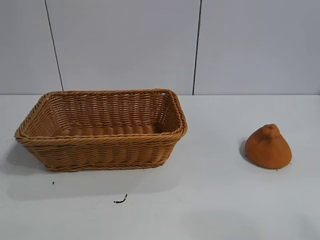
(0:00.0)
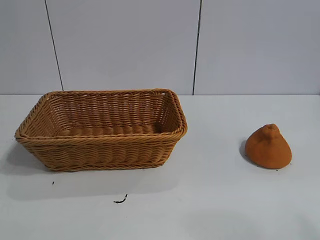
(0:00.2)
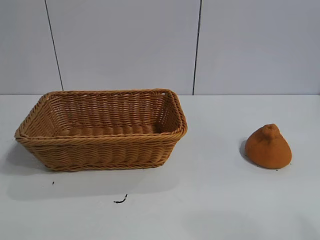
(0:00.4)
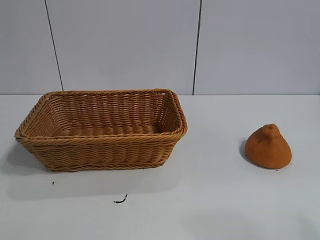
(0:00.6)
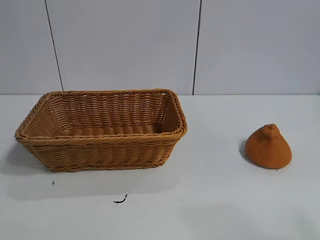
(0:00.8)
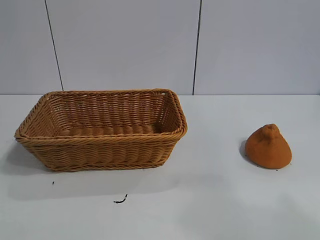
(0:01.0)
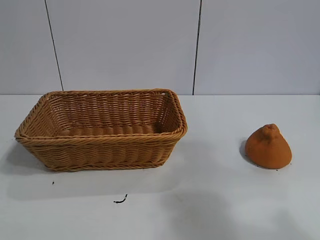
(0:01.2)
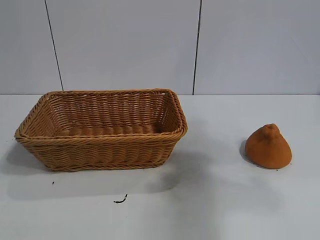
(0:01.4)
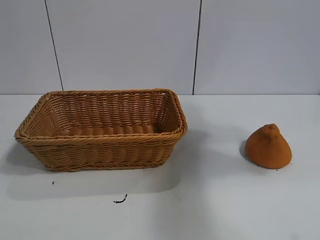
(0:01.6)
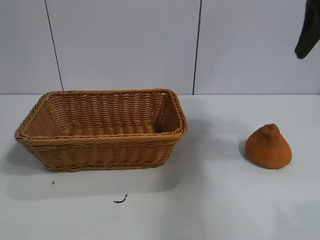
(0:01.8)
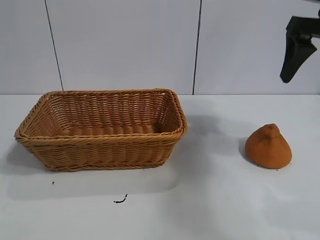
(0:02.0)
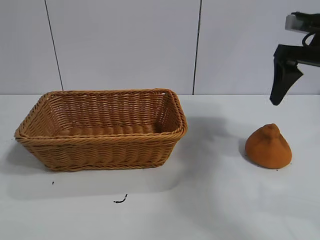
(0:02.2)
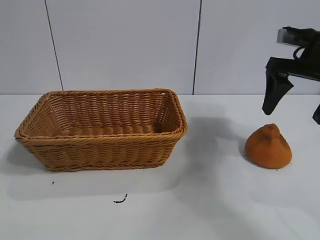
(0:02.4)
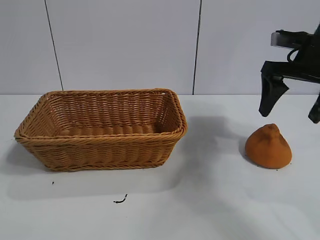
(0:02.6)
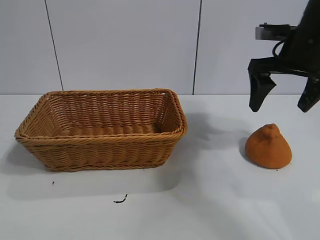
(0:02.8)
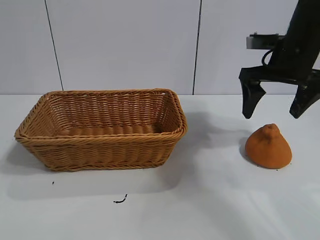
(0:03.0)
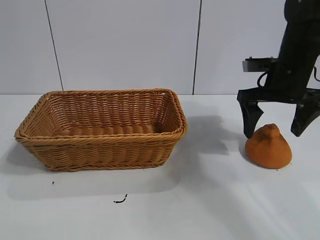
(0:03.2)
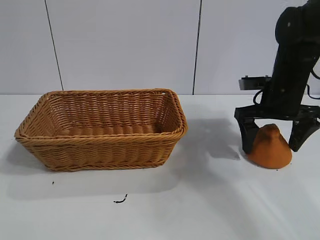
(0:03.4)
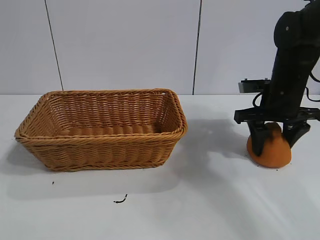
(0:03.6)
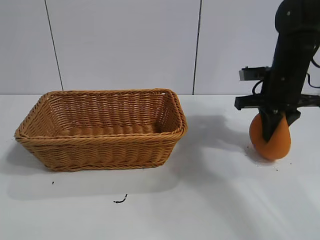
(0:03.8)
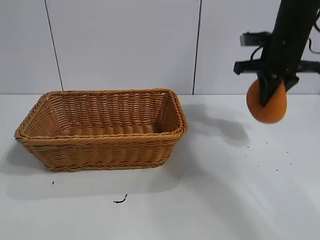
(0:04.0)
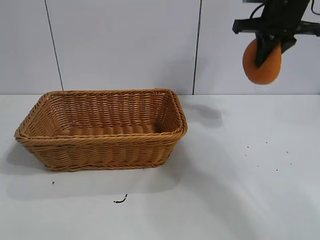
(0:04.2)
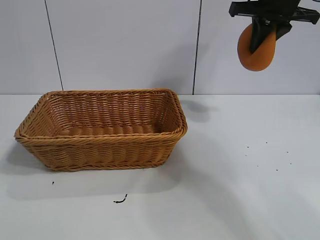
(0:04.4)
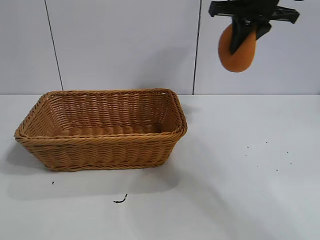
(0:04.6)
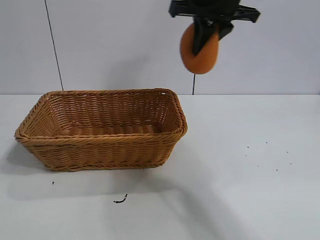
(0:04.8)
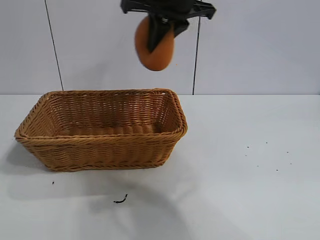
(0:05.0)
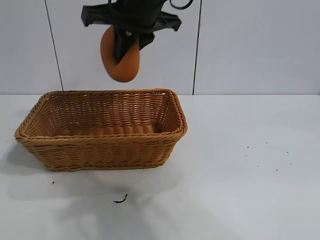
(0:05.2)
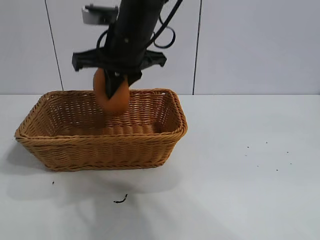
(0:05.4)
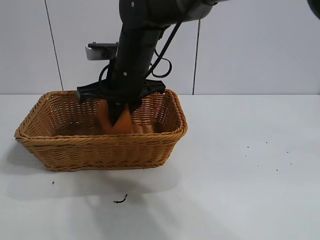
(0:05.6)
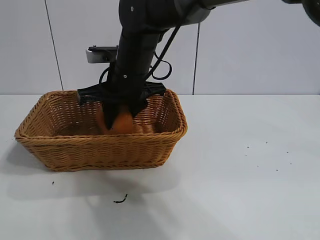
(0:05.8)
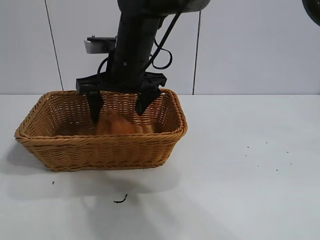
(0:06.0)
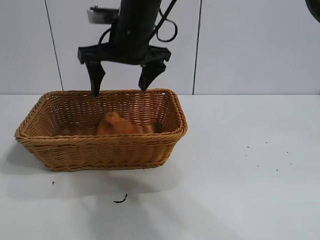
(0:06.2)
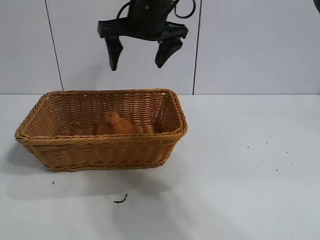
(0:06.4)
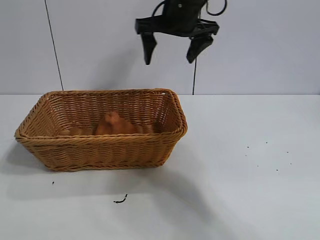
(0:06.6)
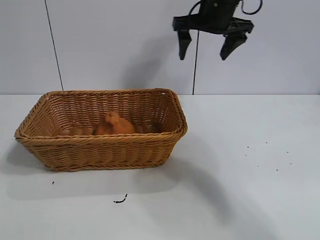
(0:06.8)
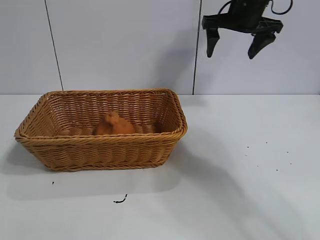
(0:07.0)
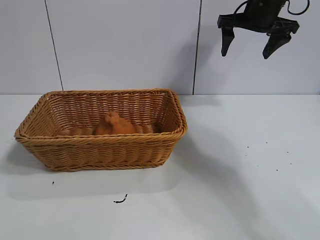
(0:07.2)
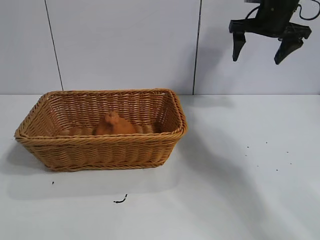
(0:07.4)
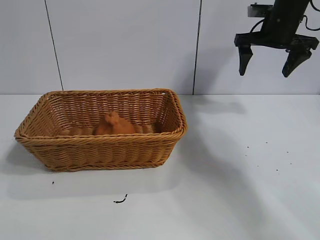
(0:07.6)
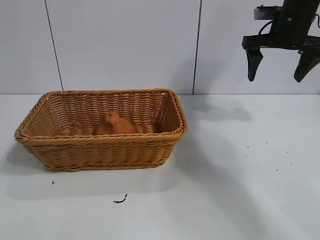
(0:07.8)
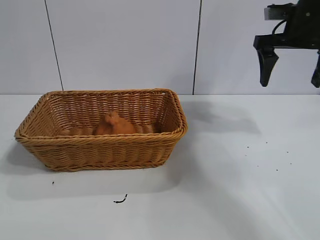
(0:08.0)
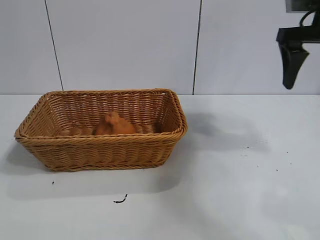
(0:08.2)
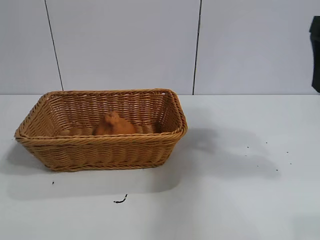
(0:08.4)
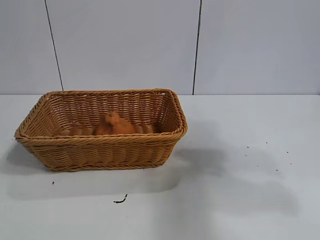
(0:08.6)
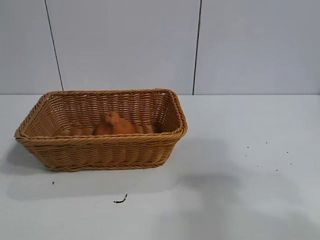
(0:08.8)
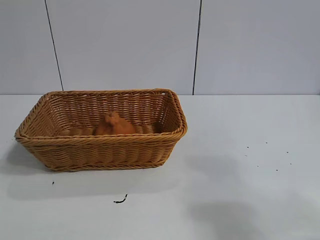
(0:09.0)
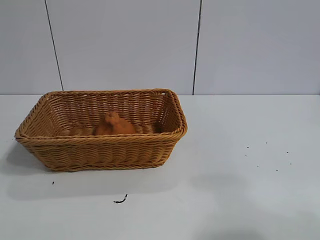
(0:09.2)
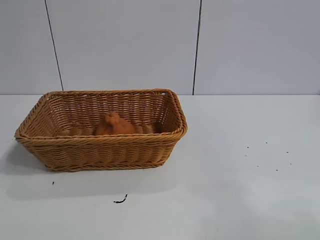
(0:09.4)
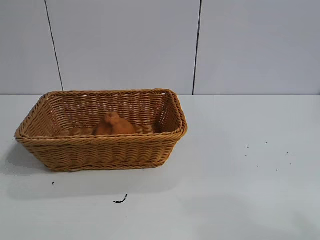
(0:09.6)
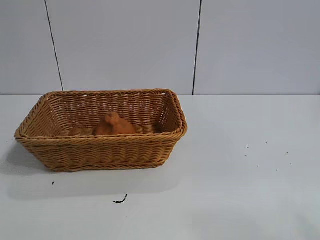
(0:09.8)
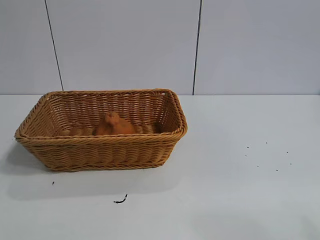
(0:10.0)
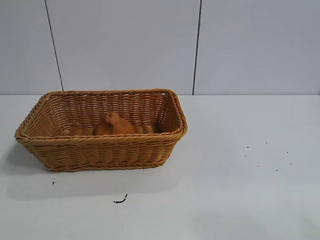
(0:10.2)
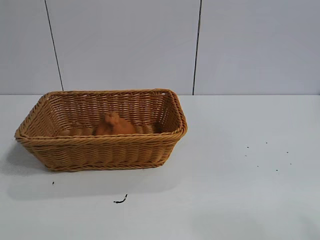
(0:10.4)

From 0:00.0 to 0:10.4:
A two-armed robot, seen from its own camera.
Task of the whole recording: pick up the orange and put it into the basket.
Step, from 0:00.8 to 0:03.6: Grasp the orange with right gripper.
Step, from 0:03.8 to 0:05.8: Place the orange in the basket with right gripper.
